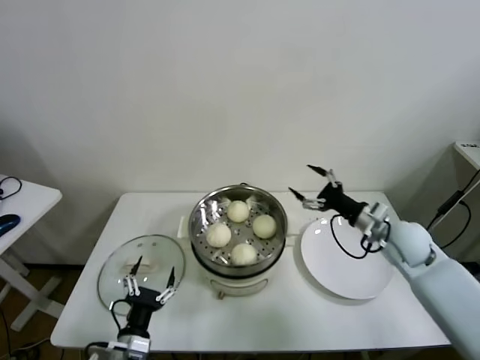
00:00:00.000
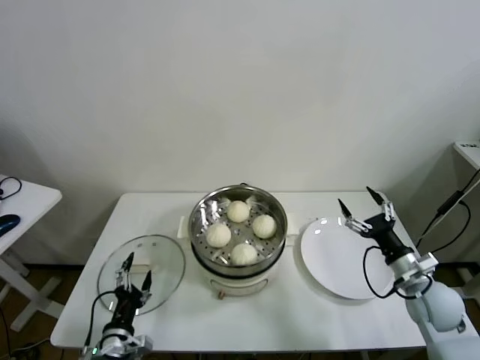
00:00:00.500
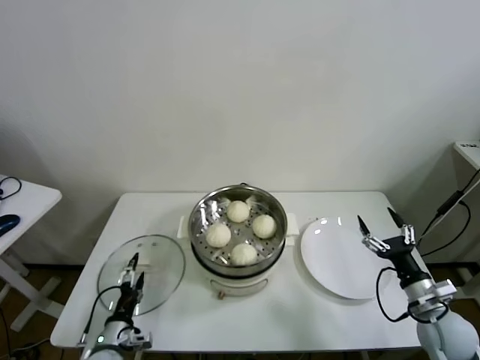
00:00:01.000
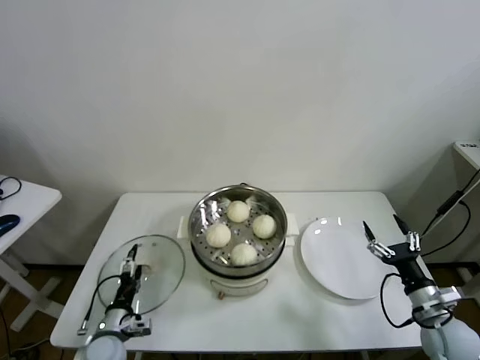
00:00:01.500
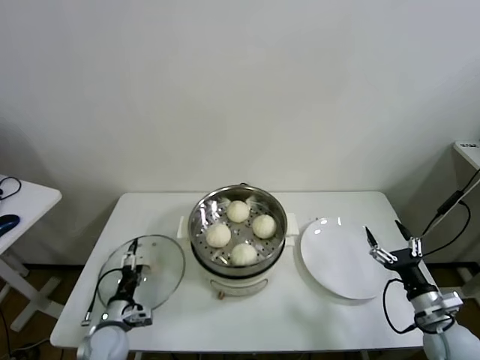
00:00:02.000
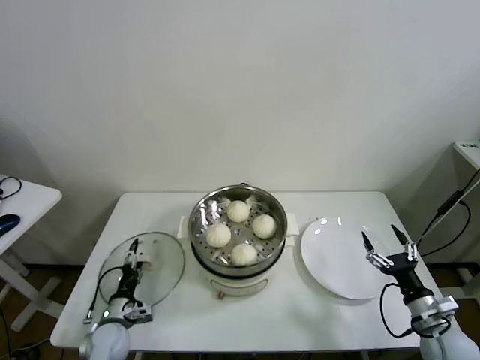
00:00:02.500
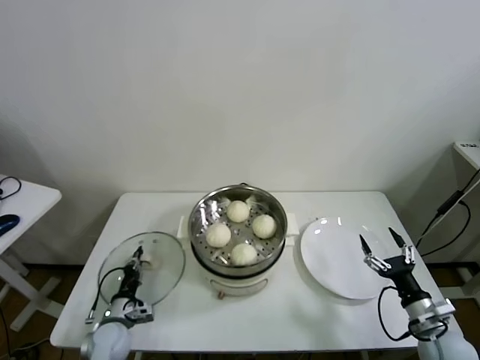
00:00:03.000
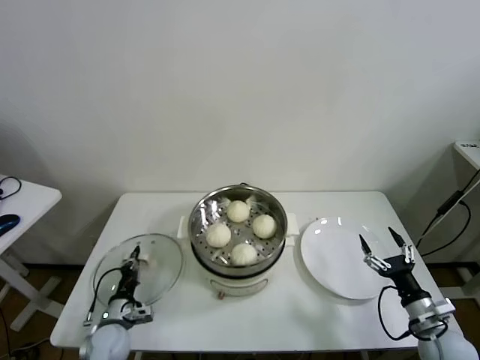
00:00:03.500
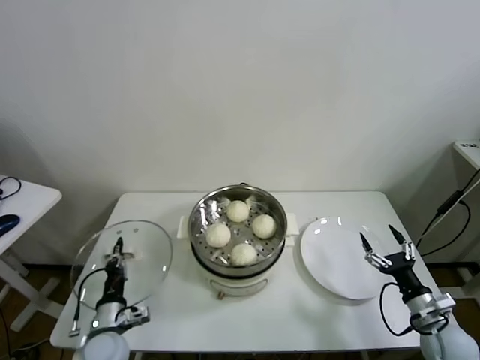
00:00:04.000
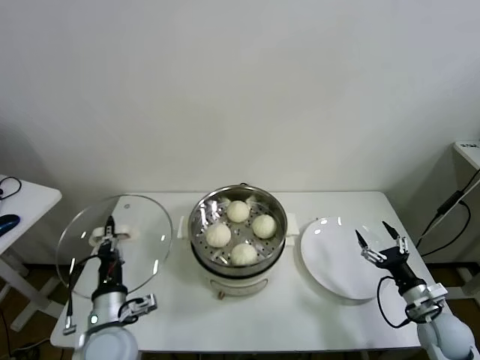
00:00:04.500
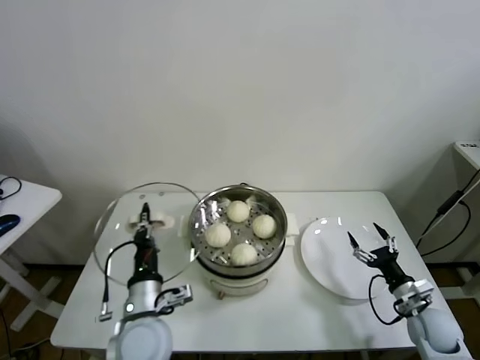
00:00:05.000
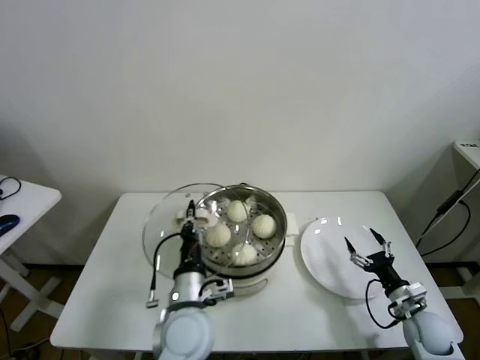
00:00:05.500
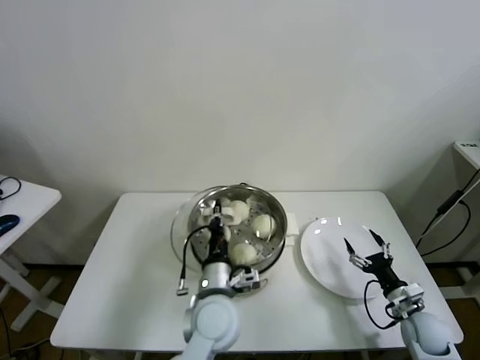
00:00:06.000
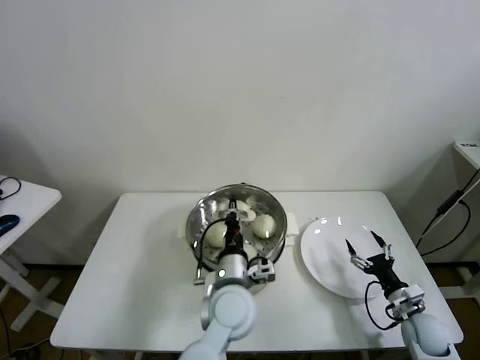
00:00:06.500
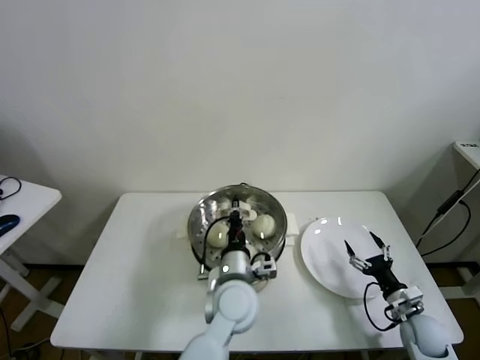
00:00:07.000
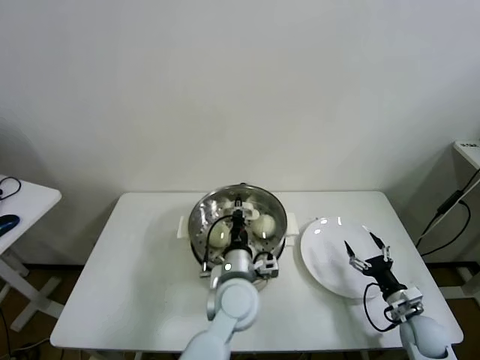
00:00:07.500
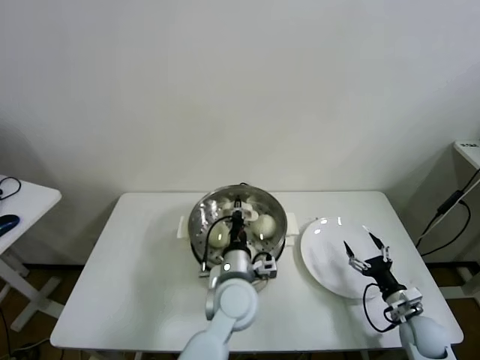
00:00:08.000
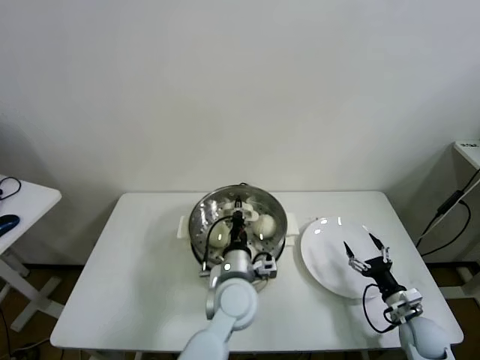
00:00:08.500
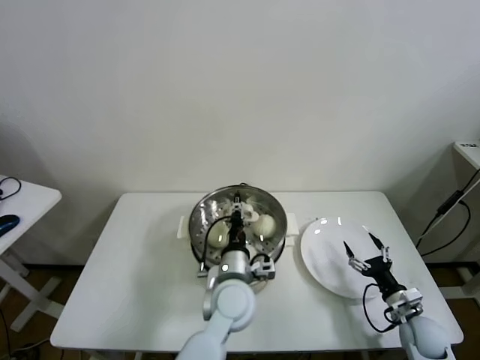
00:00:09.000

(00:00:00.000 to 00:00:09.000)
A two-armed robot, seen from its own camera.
Task of the whole recording: take steamed baozi put them in steamer.
Step, 00:00:00.000 - 00:00:03.000: Grasp the pot lid with left gripper.
Step, 00:00:03.500 - 00:00:09.000: Place the pot lid on the steamer with left gripper.
00:00:00.000 - 00:00:02.000: The right gripper goes about 20 cm backward, downward and to the right, while the left gripper travels forward, to the left and downward by roughly 15 cm.
00:00:02.000 - 00:00:04.500: The left gripper heads upward and to the right, covering roughly 15 cm, and closes its fingers.
00:00:04.500 - 00:00:07.000: The right gripper travels downward by approximately 5 cm, while the left gripper travels to the right by about 25 cm.
00:00:07.000 - 00:00:09.000: Both grippers stay put.

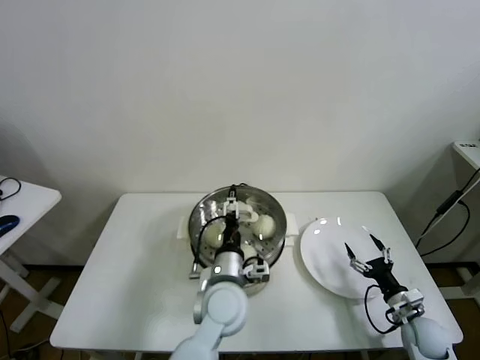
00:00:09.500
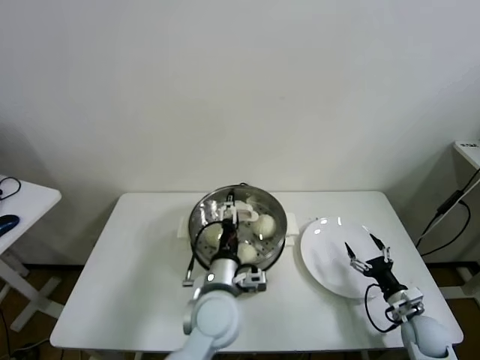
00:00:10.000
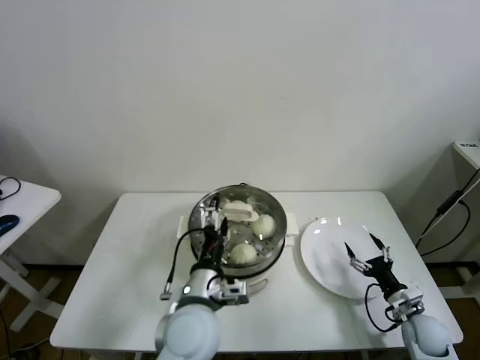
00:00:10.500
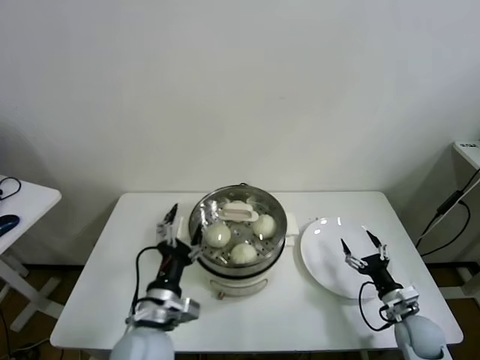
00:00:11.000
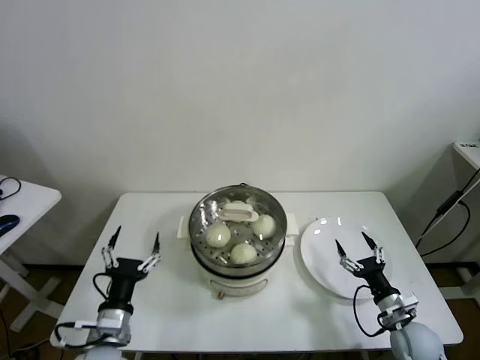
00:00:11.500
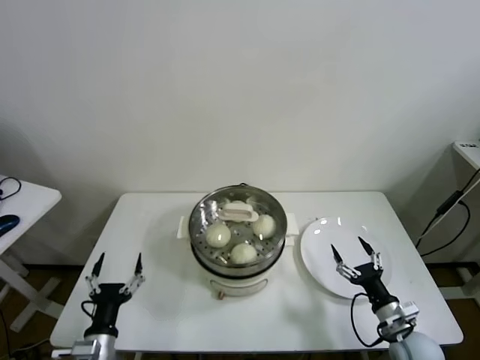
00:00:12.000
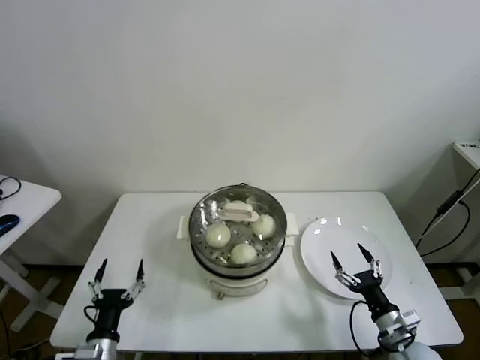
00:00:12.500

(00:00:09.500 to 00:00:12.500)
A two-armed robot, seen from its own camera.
Task of the whole recording: take steamed baozi put them in steamer.
00:00:09.500 - 00:00:11.000: The left gripper travels to the left and backward by about 15 cm.
00:00:11.000 - 00:00:12.500: The left gripper shifts about 20 cm to the left and downward, while the right gripper heads backward, covering some 5 cm.
